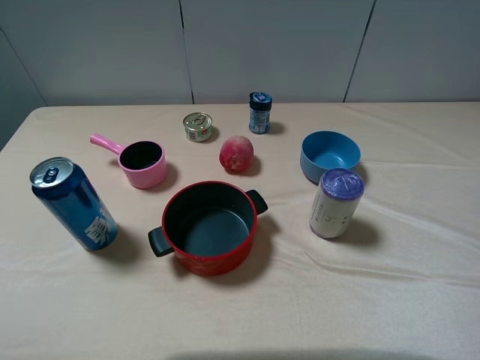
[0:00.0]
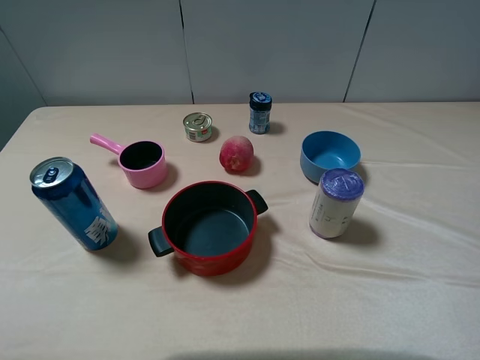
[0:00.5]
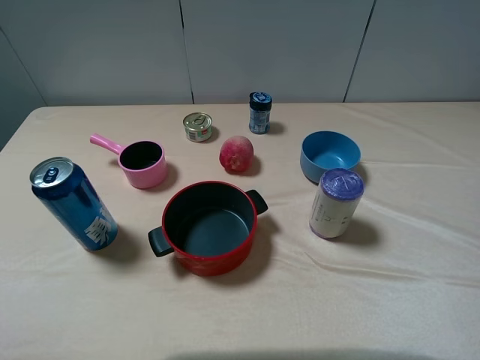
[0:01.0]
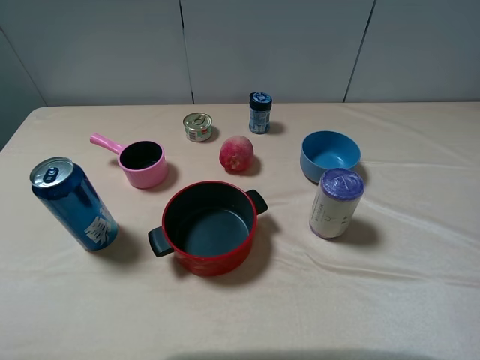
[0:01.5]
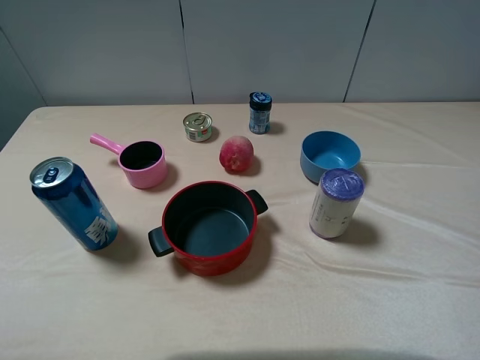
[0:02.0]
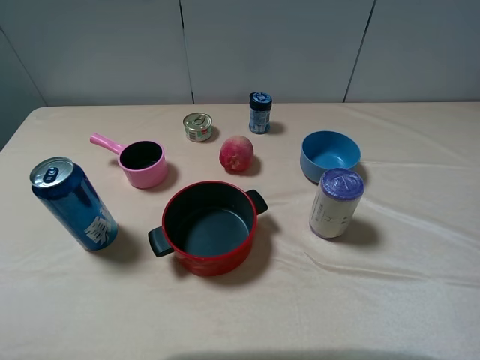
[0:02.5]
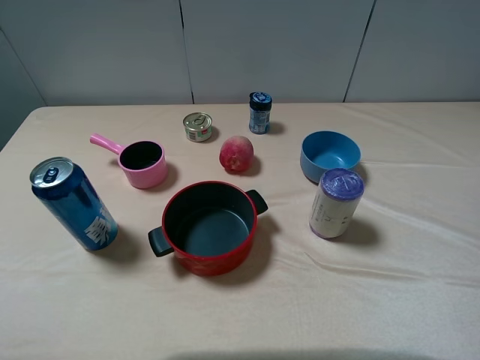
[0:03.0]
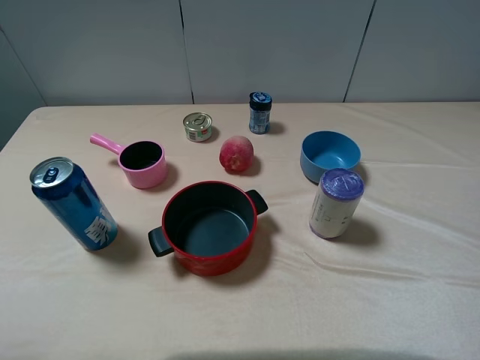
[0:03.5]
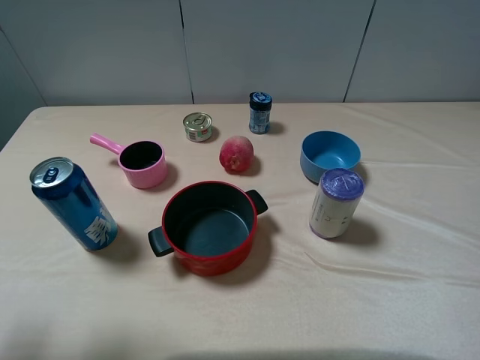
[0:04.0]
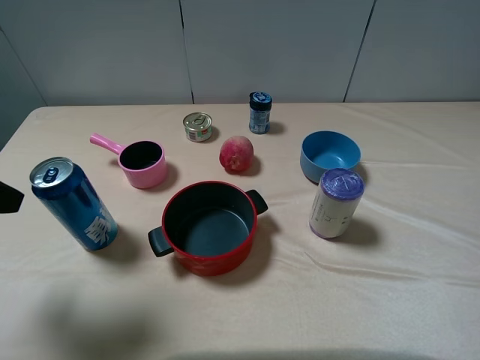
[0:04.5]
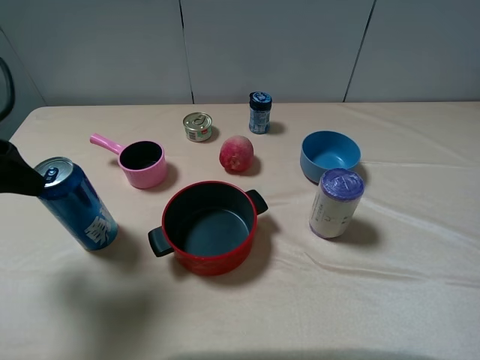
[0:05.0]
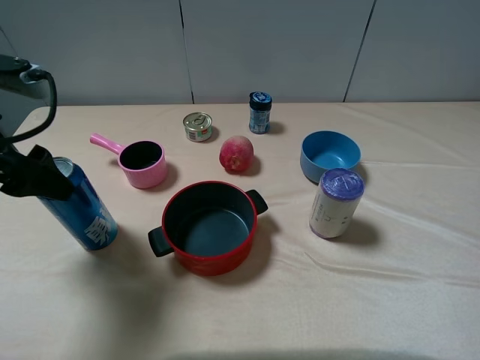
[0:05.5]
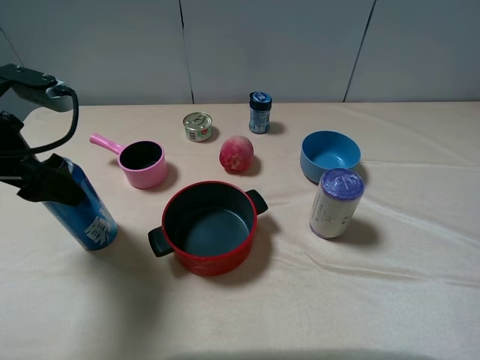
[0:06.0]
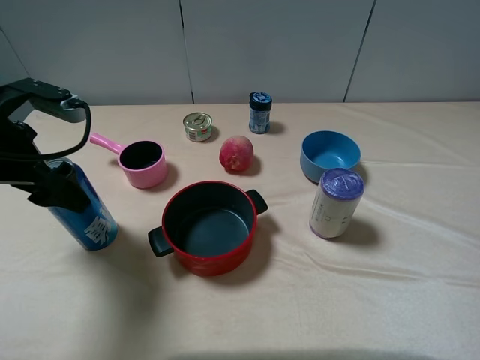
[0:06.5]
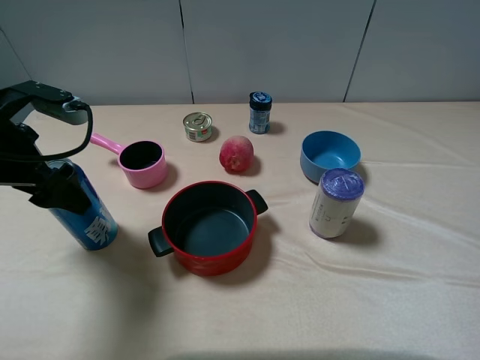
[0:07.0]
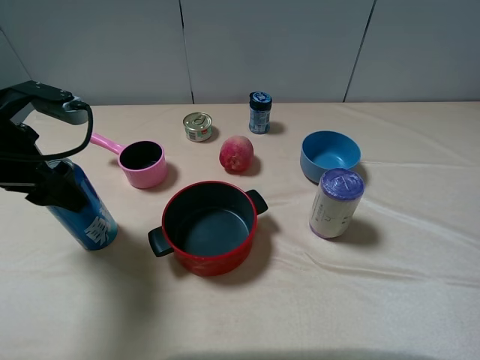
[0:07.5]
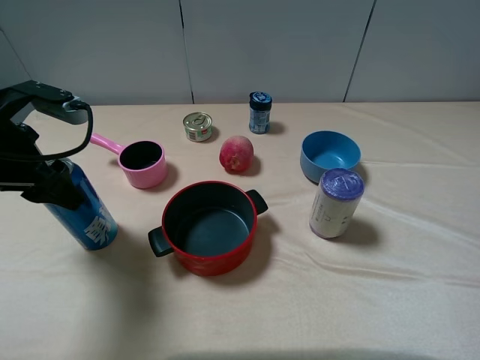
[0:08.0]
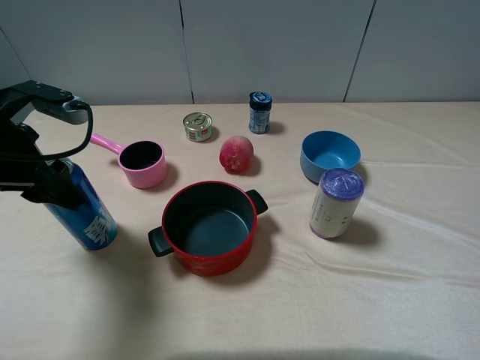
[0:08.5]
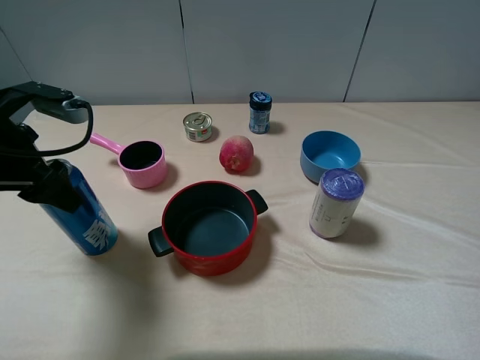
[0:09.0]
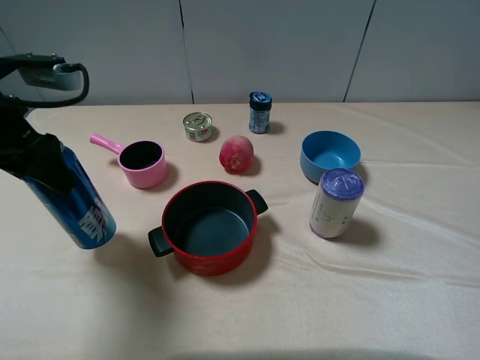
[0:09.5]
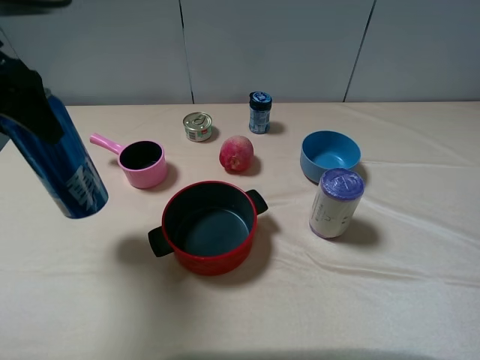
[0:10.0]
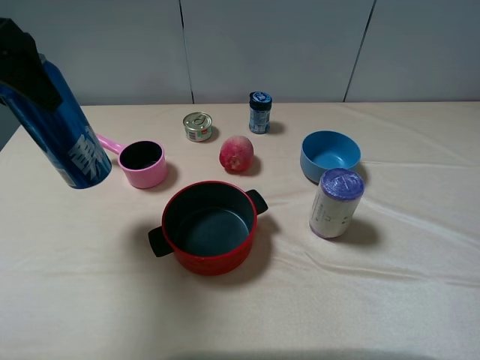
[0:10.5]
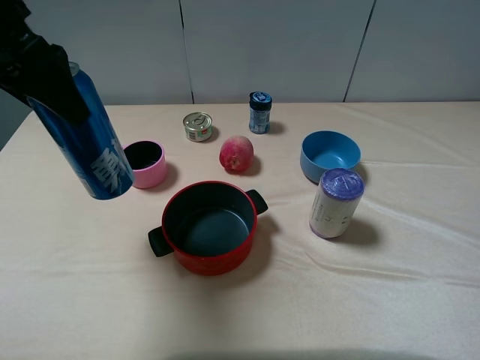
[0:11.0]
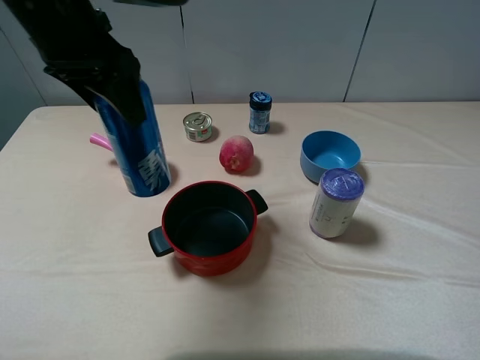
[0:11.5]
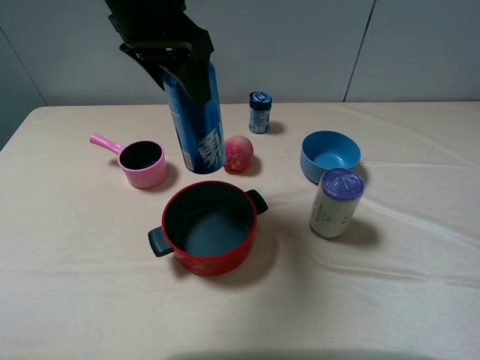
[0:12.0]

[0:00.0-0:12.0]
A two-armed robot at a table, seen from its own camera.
Task of the whole recording: pick up an item with a gripper and place it in a random container on the table.
Step, 0:00.0 to 0:08.5: Grasp the beer with the left gripper.
0:00.0 to 0:02.0: The two grippers keep their place.
0:02.0 to 0:04.0: The left gripper goes about 10 cm forward.
0:04.0 to 0:06.0: The left gripper heads forward, covering about 15 cm.
0:06.0 to 0:08.0: The left gripper closes up.
0:08.0 to 0:10.0: The left gripper goes some 10 cm upward.
0:10.0 to 0:12.0: The left gripper heads to the right, covering about 15 cm.

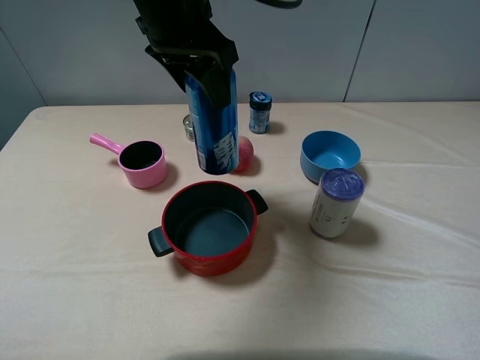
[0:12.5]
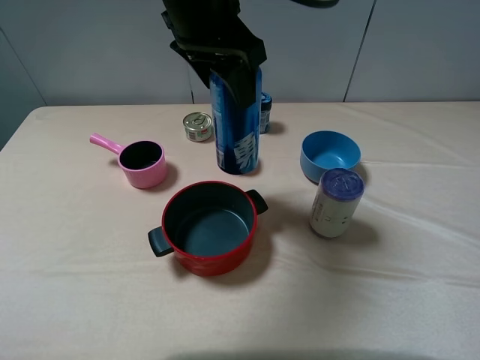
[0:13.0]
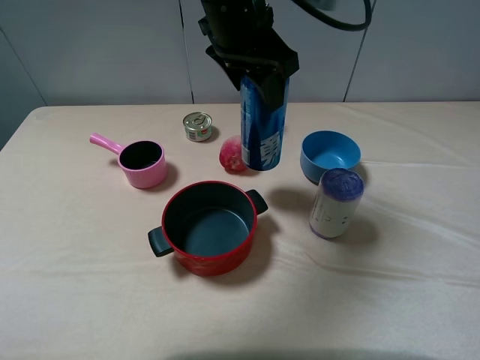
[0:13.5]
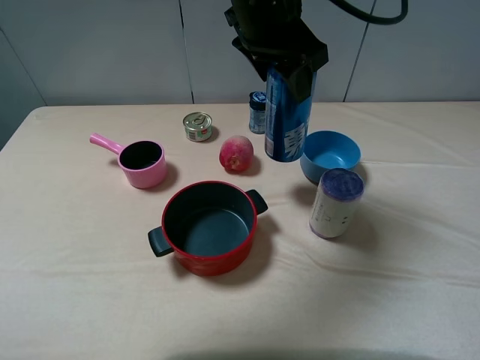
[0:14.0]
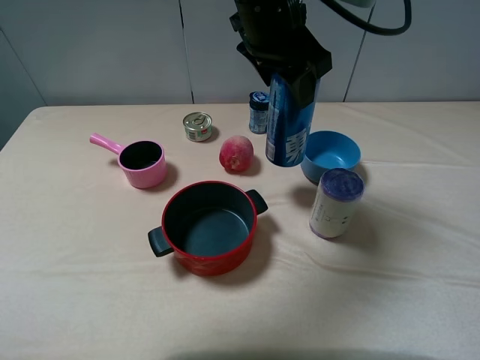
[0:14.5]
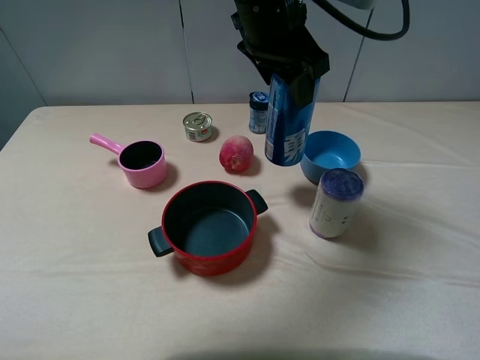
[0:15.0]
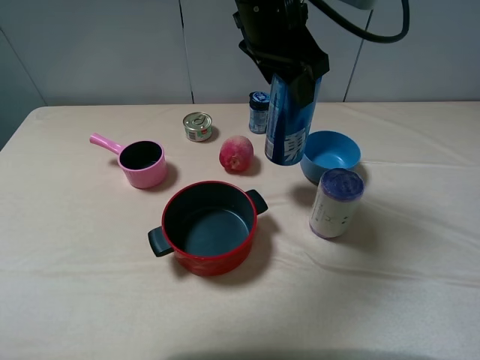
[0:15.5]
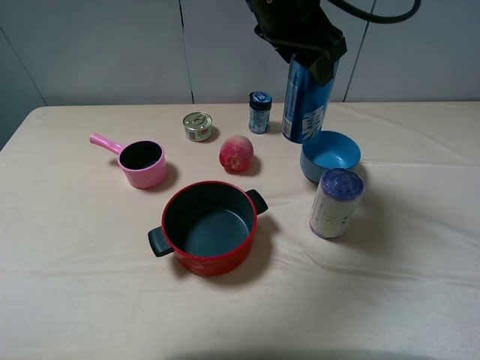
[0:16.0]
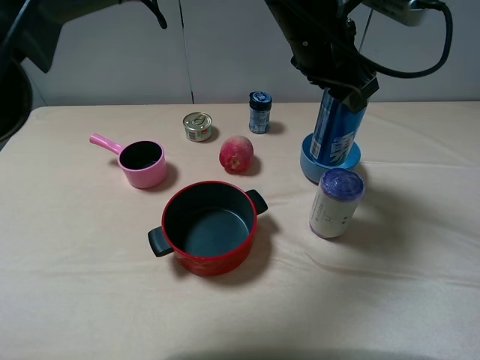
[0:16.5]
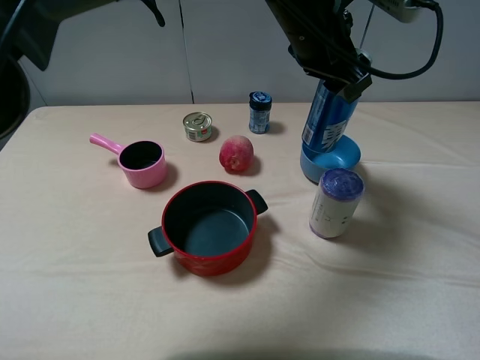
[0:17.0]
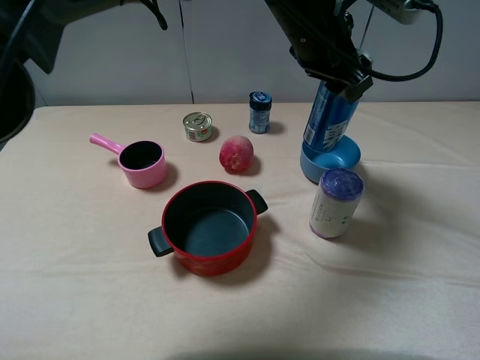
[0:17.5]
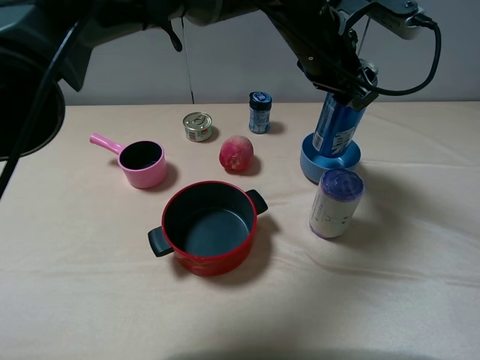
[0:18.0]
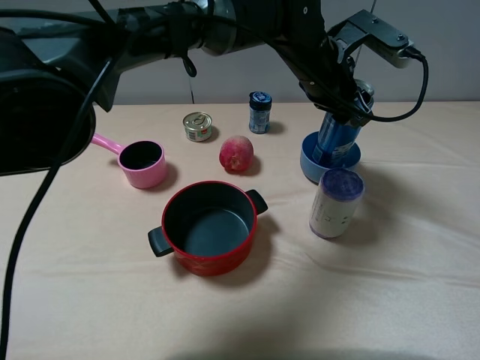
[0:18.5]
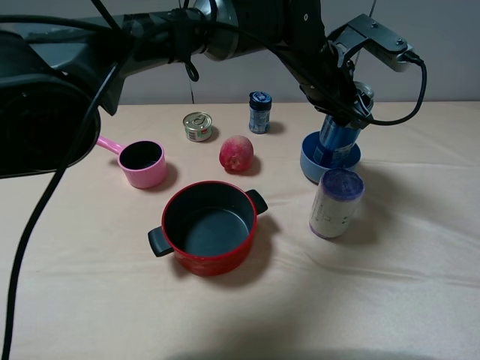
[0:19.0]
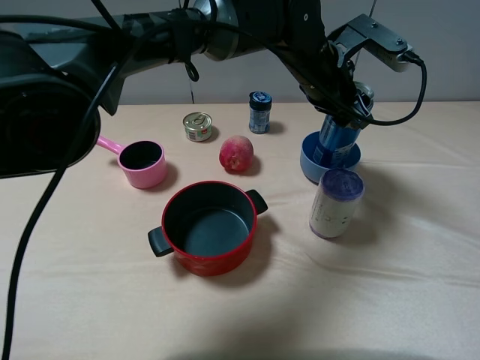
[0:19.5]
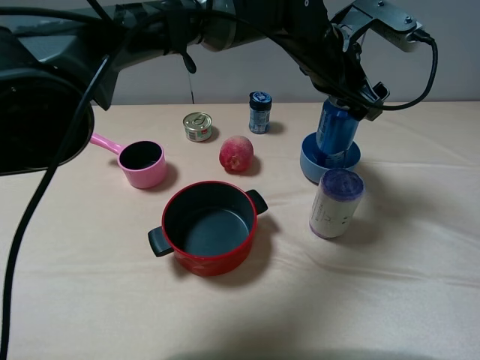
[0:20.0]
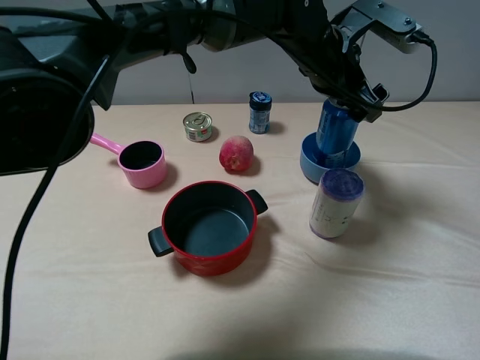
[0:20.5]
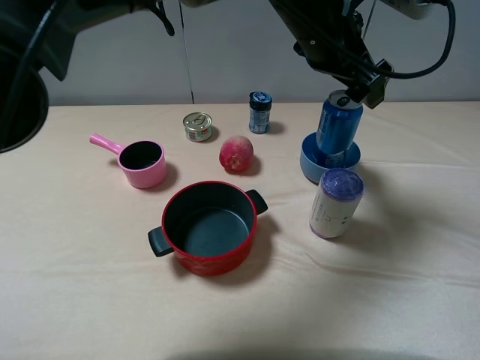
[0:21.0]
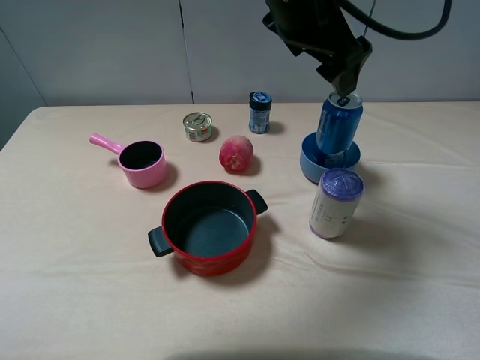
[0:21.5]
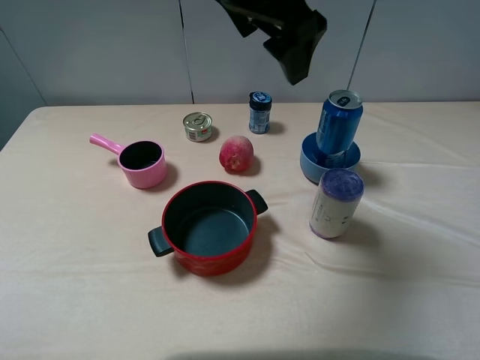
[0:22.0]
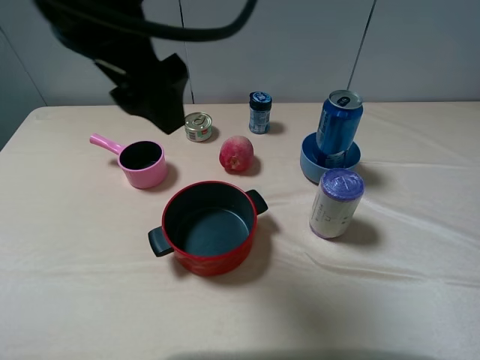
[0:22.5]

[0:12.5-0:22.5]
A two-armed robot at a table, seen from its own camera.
Task of the whole recording: pick up an item with a gripper and place it in a random container on the table.
Step, 0:12.5 to 0:20.5: Place the beer into the blue bowl with the left gripper.
0:12.5 to 0:14.5: The left gripper goes about 10 cm to the right.
0:14.5 to 0:16.5: The left gripper travels to the right by approximately 5 cm.
0:16.5 to 0:18.5: The left gripper moves downward, some 5 cm.
0:18.5 to 0:20.5: The left gripper opens its fingers.
0:20.5 to 0:22.5: The left gripper is displaced to the left, backward and upward by approximately 30 cm.

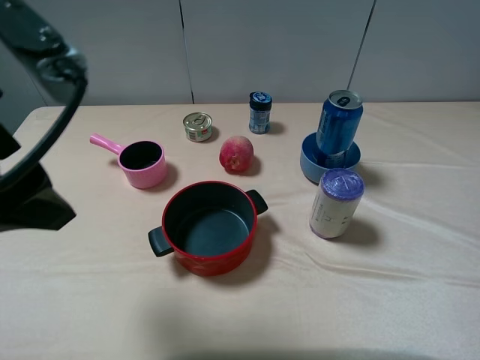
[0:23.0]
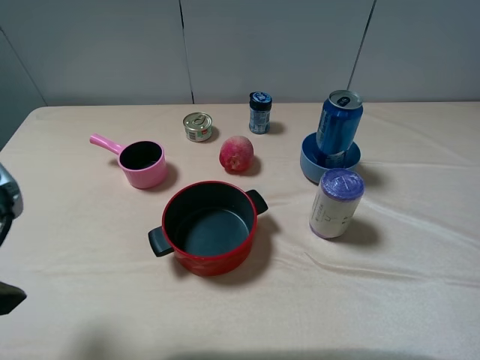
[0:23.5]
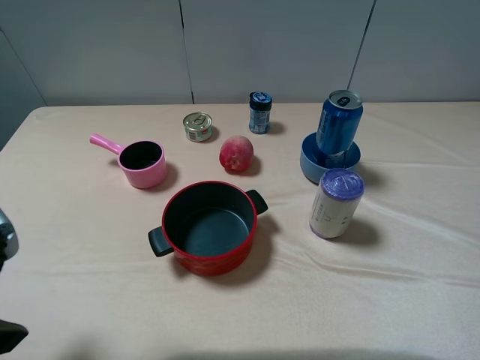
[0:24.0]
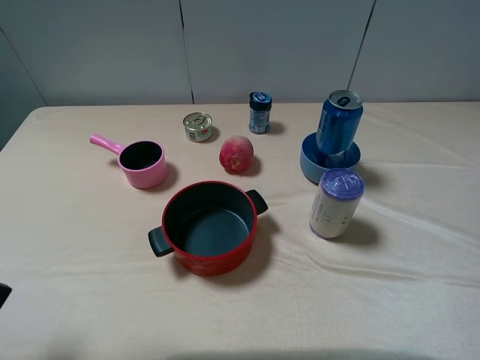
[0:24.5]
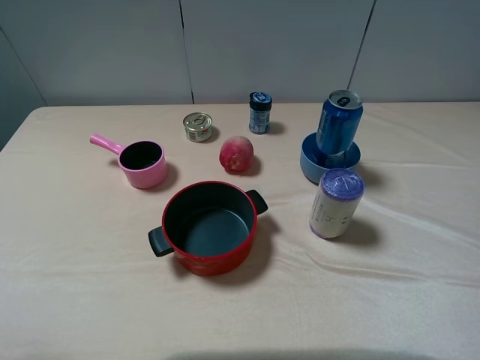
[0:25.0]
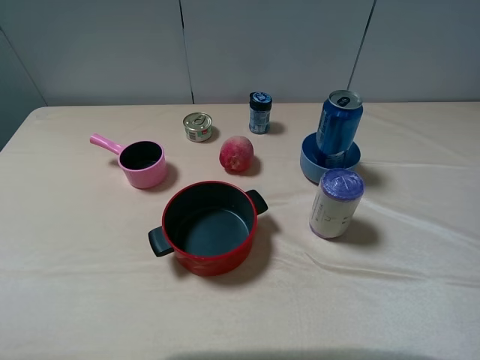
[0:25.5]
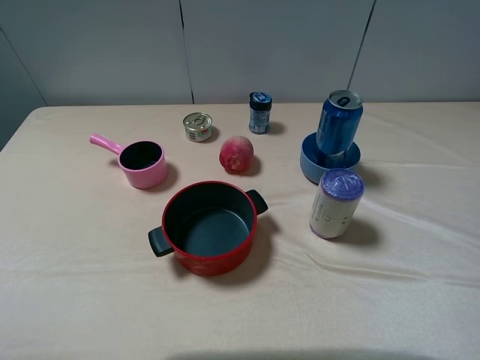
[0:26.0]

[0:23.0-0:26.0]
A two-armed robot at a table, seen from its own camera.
Task of the whole recording: pick up an item with a gripper and place it in a random container on the table.
0:23.0 to 0:24.5: The left gripper goes approximately 15 cm to the left, backward and downward.
